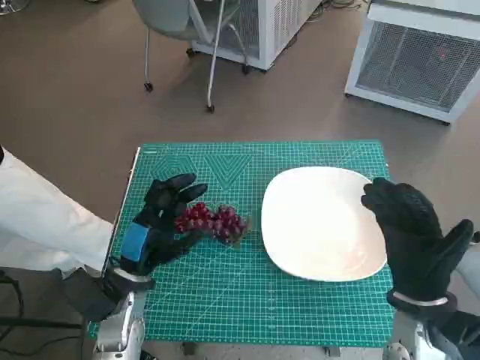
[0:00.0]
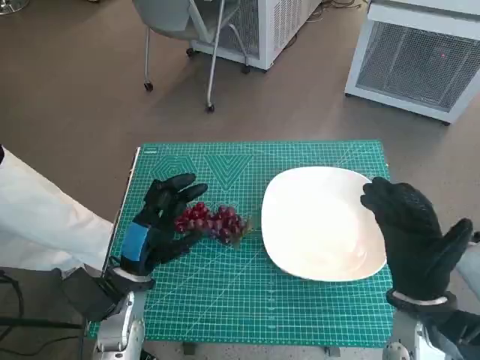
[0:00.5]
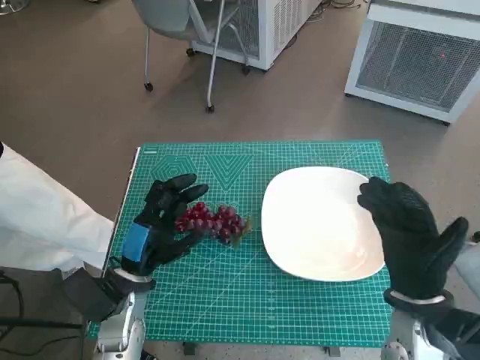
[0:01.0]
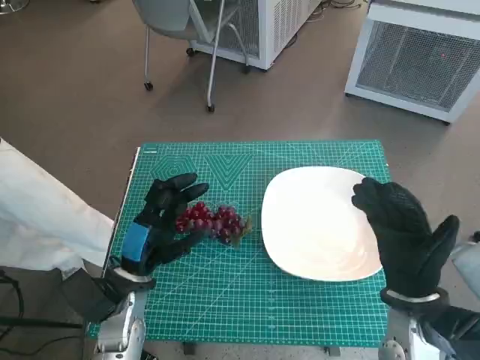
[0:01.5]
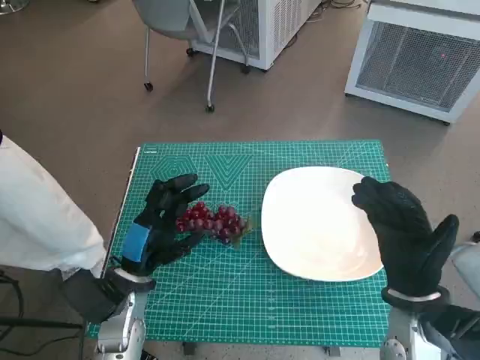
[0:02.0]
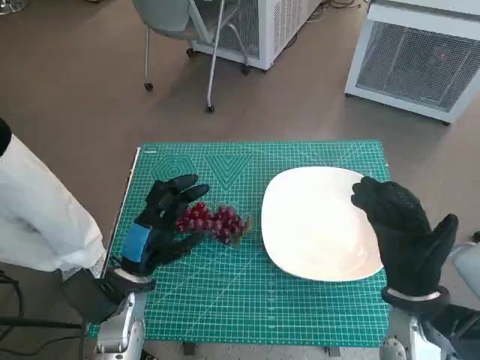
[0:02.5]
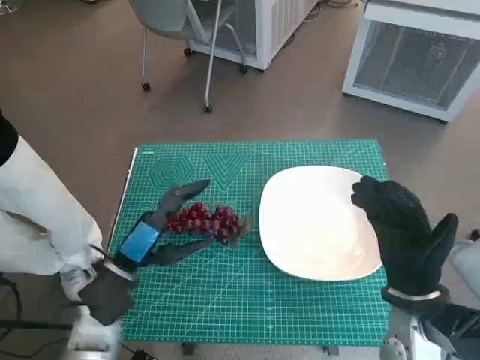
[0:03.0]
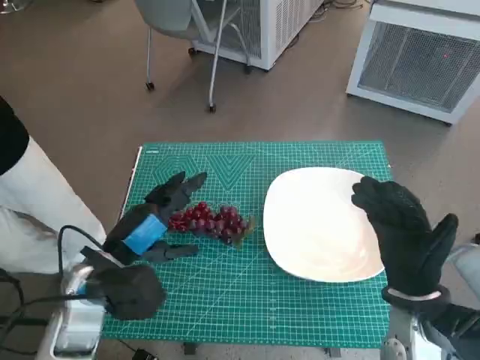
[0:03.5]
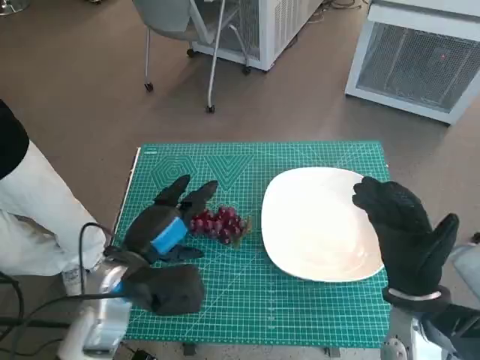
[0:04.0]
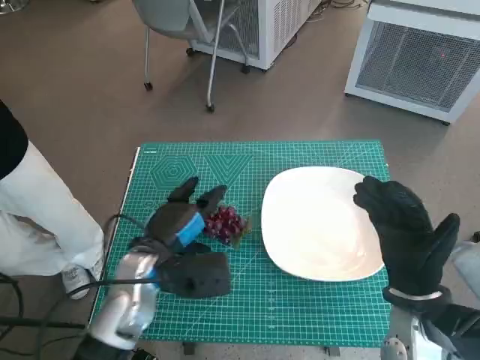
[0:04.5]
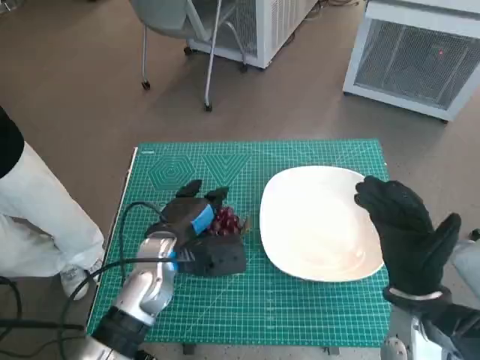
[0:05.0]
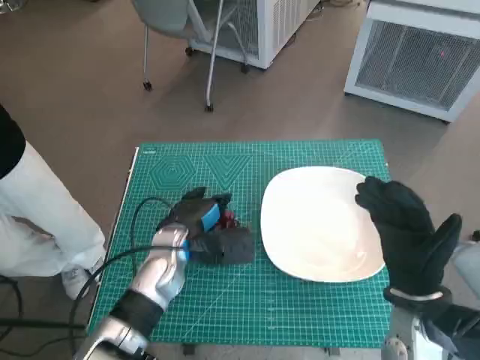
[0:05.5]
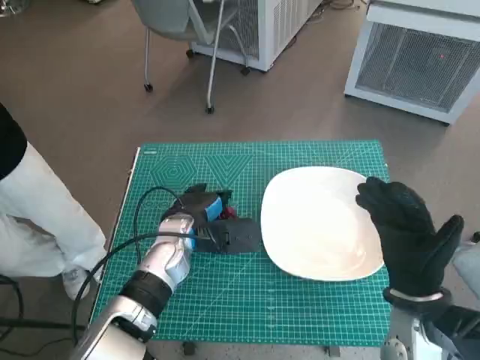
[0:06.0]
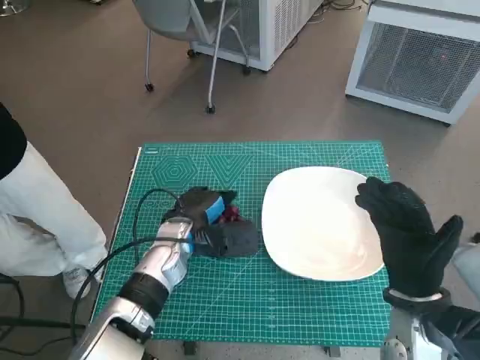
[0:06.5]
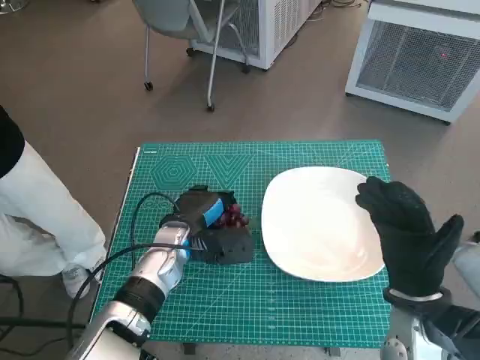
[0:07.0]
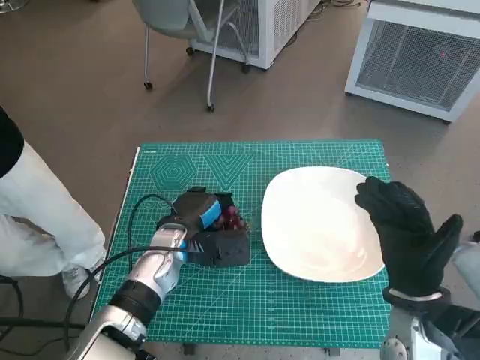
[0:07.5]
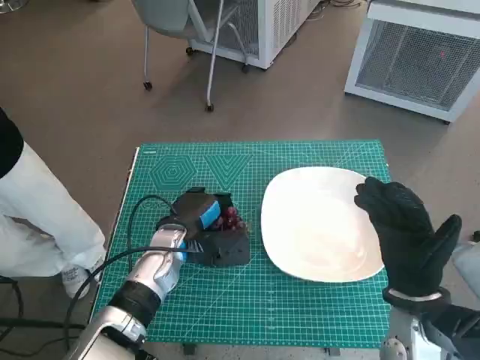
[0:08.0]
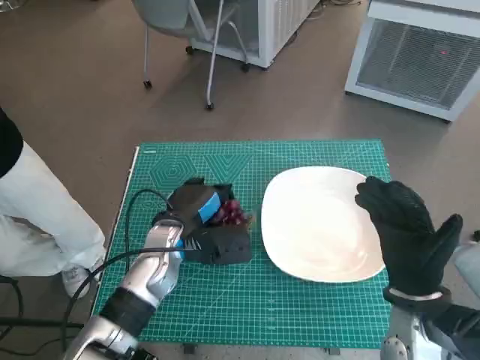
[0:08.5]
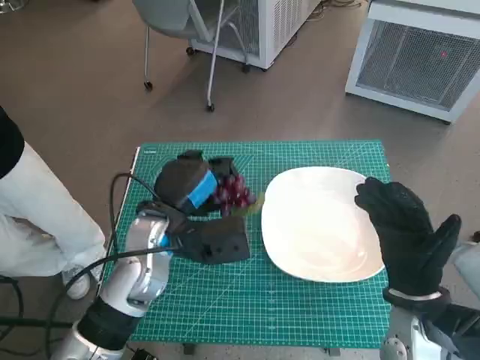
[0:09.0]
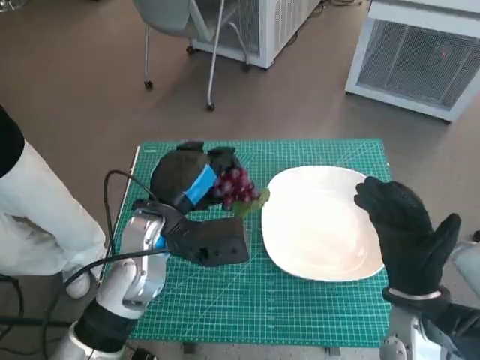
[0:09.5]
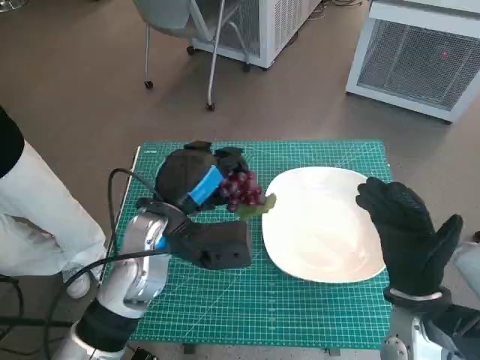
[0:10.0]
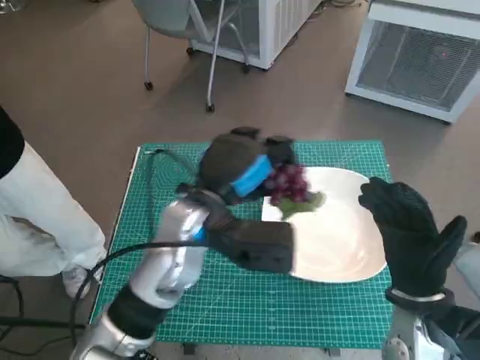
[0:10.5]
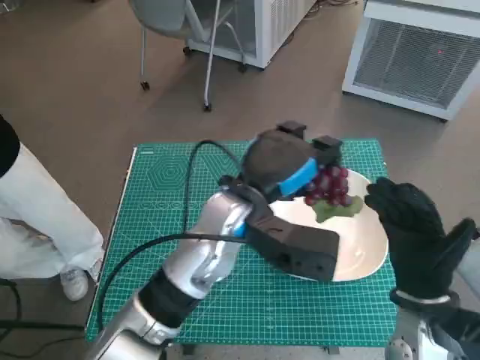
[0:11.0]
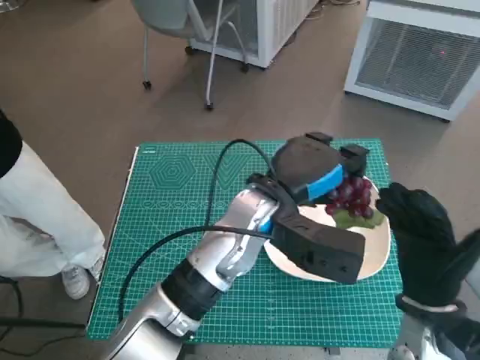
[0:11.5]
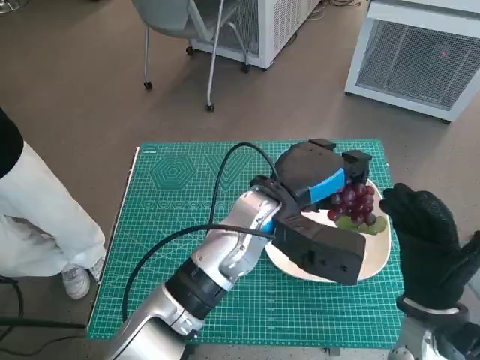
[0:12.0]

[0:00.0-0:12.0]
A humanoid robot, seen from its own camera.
Task of the whole recording: Pick up the grapes and put them on the plate.
Step, 0:00.0 to 0:08.0: Grasp the grapes with left hand.
0:02.0 to 0:04.0: The left hand goes roughly 5 cm upward.
0:04.0 to 0:06.0: The left hand is displaced forward and to the right by some 10 cm.
0:06.0 to 0:08.0: There are only small adjustments of the hands.
0:08.0 to 0:10.0: The left hand travels upward by approximately 10 cm.
0:10.0 to 0:12.0: The left hand is displaced to the right by some 15 cm.

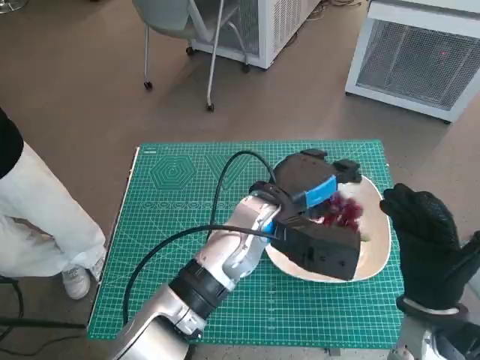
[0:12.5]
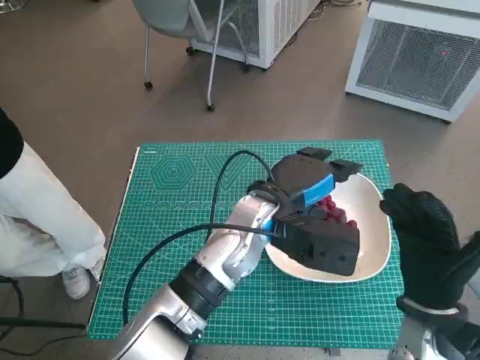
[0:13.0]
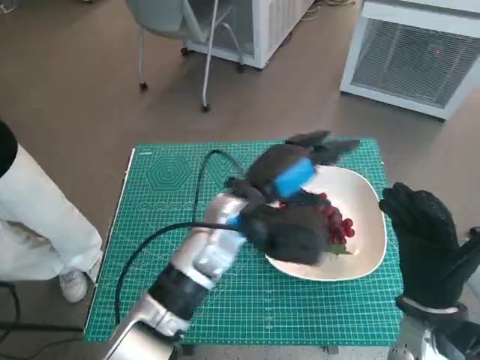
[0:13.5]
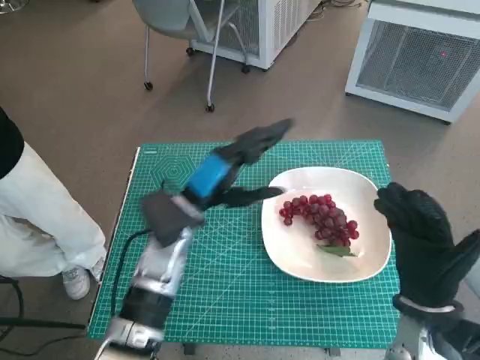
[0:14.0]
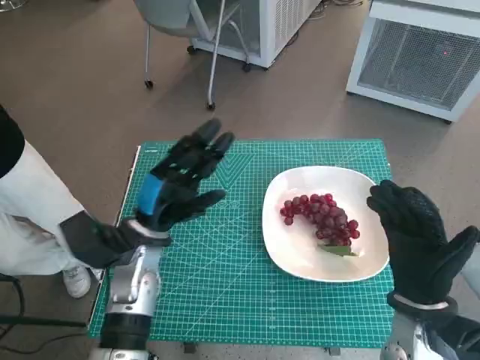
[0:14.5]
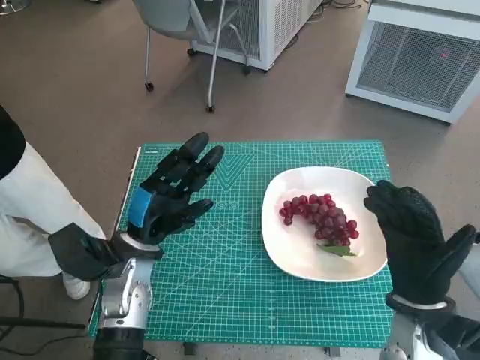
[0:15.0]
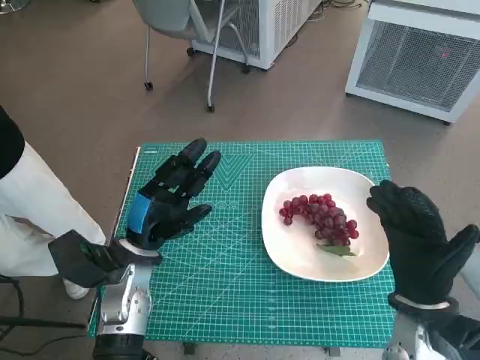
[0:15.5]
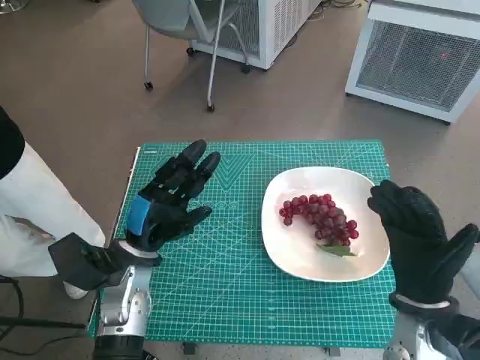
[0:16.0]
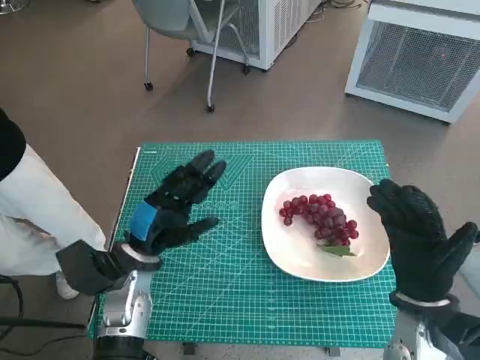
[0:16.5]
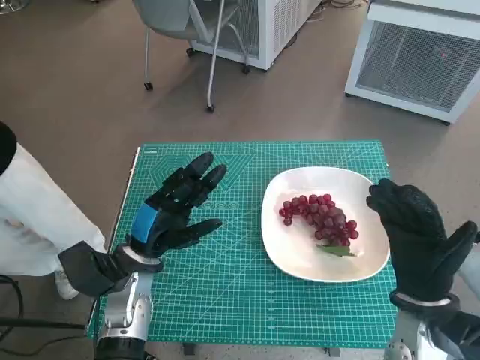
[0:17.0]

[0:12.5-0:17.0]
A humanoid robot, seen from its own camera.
Task of the whole recording: Pick up the grapes and put them on the plate.
0:12.5 to 0:14.5: The left hand travels to the left by approximately 15 cm.
0:14.5 to 0:17.0: There are only small adjustments of the hands.

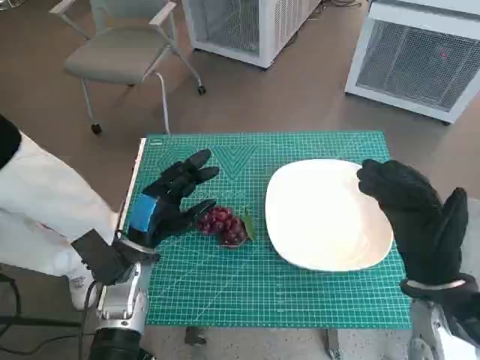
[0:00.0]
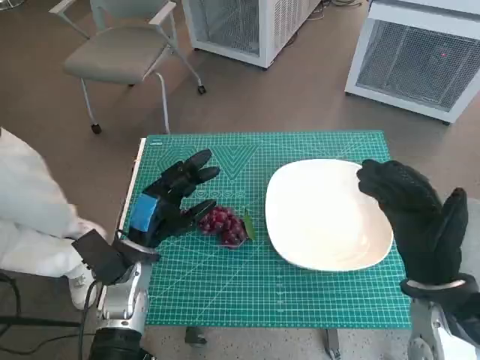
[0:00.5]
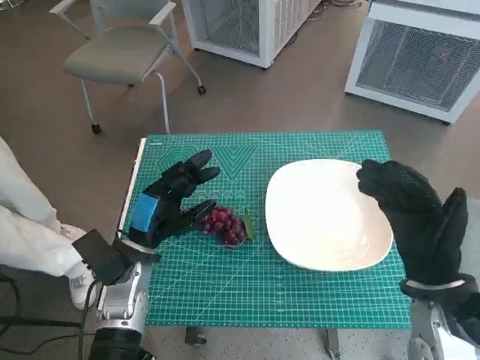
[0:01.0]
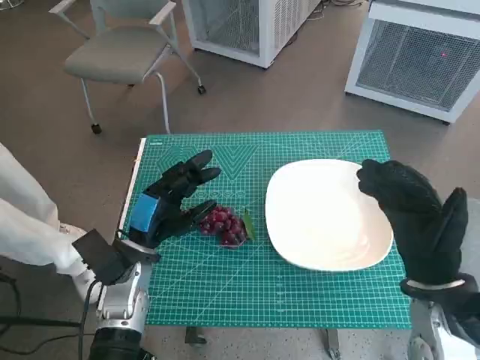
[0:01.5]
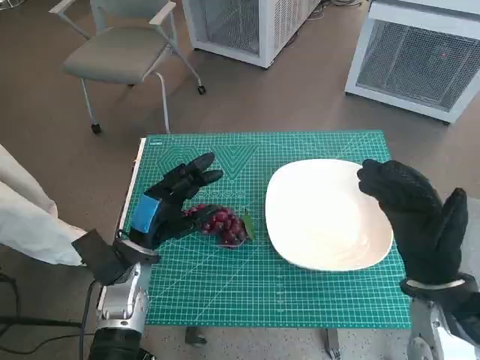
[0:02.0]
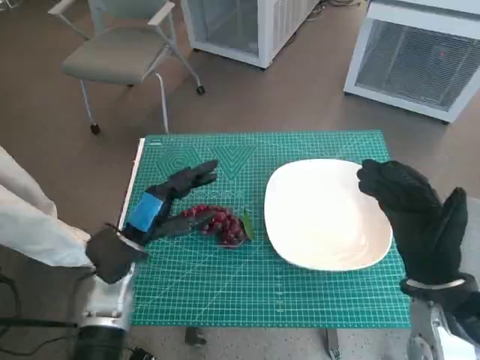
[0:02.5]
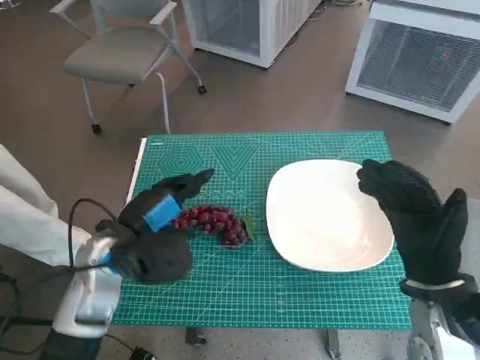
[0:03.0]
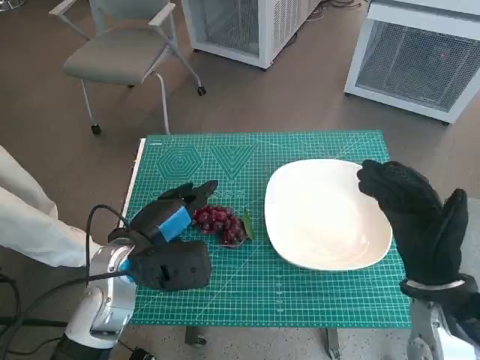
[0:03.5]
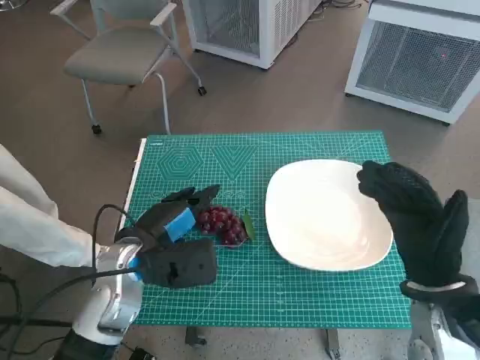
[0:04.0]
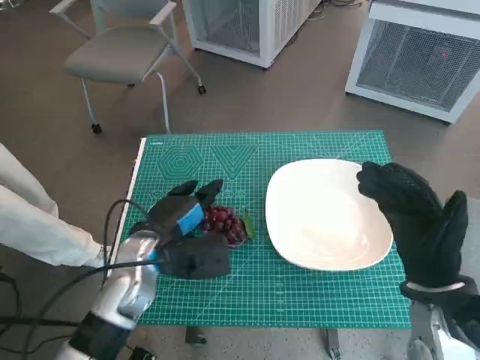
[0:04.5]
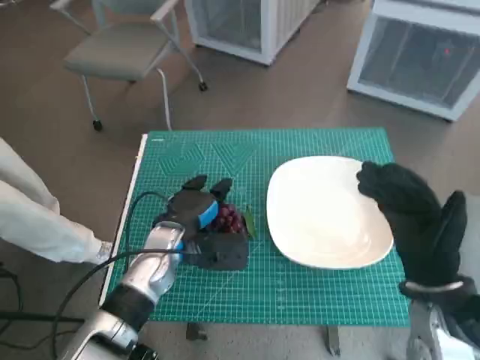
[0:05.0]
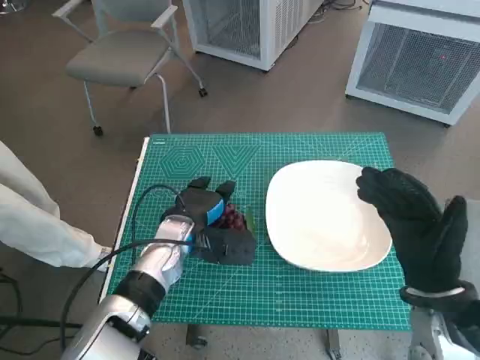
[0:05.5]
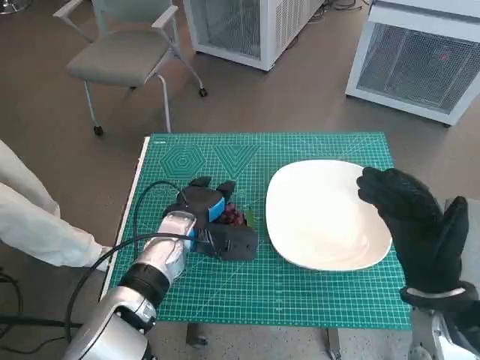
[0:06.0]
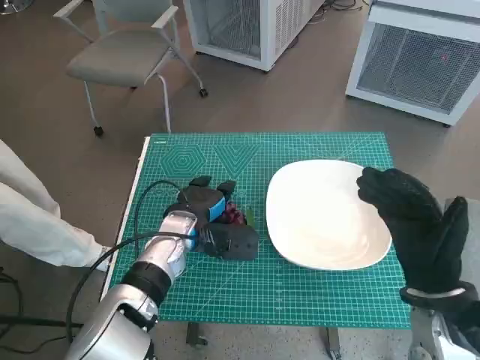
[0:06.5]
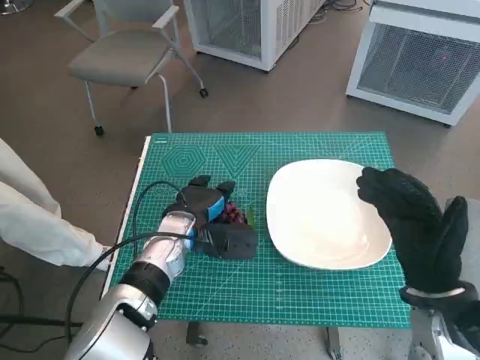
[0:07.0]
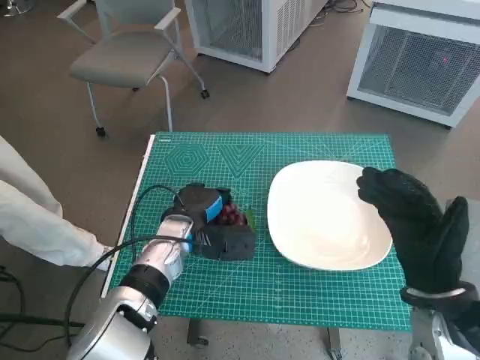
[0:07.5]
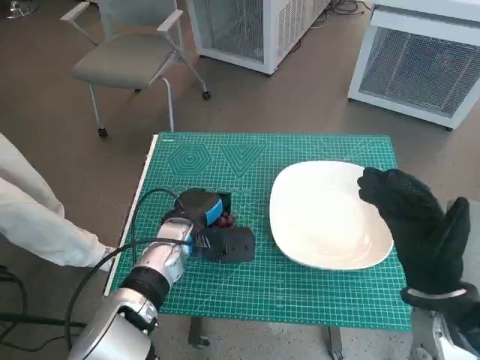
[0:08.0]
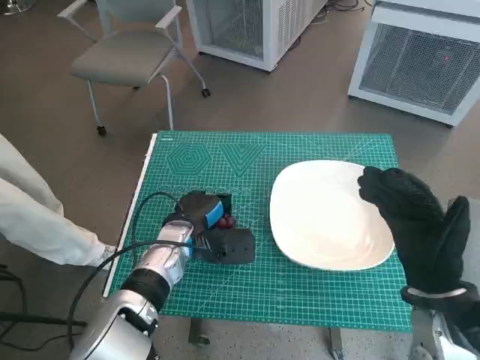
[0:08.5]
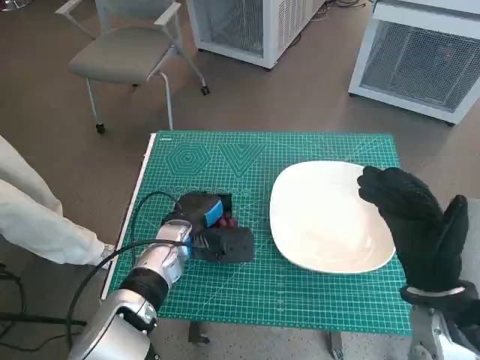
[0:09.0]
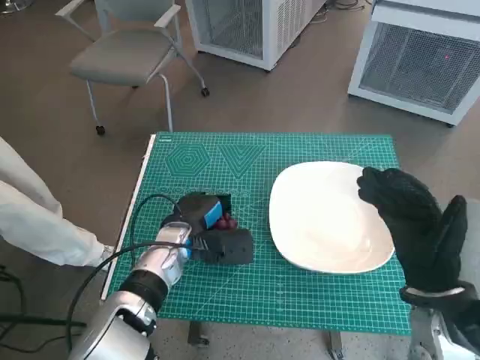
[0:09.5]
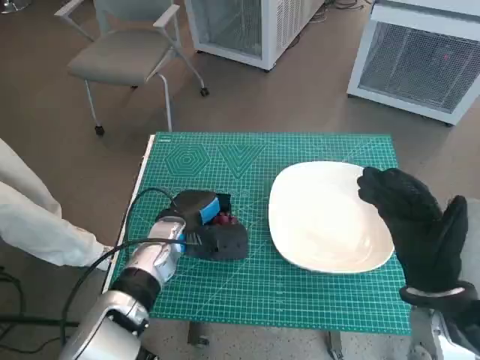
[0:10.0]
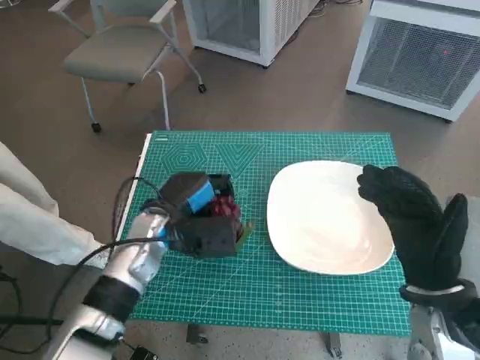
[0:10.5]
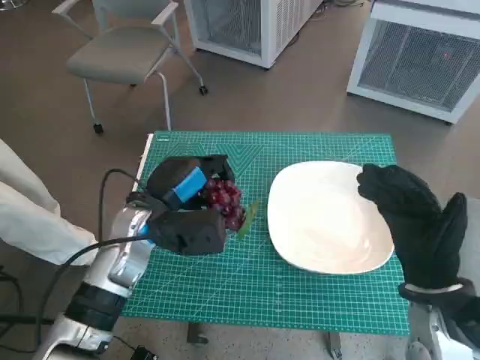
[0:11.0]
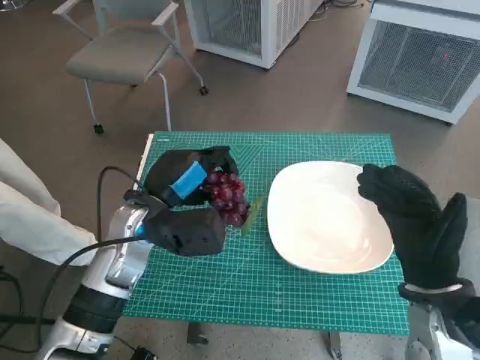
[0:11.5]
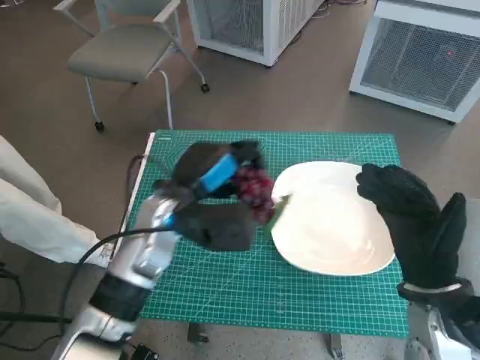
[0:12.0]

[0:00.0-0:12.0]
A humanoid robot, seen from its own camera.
Task of the whole recording: Pick up the grapes and put them on the plate.
Step, 0:00.0 to 0:08.0: Grasp the grapes with left hand.
0:02.0 to 0:04.0: The left hand ends up roughly 5 cm from where it was.
0:04.0 to 0:06.0: The left hand goes about 5 cm forward.
0:06.0 to 0:08.0: There are only small adjustments of the hands.
0:08.0 to 0:10.0: Neither hand changes place.
0:10.0 to 0:12.0: The left hand goes some 10 cm upward.
